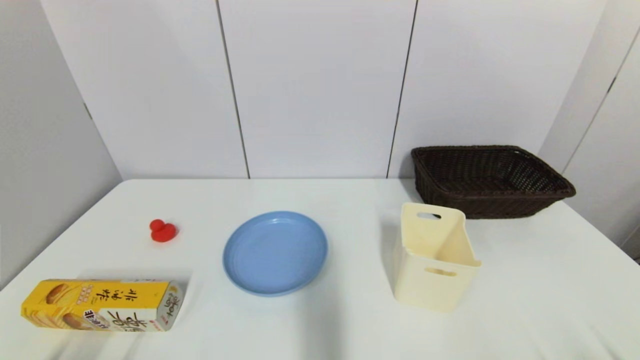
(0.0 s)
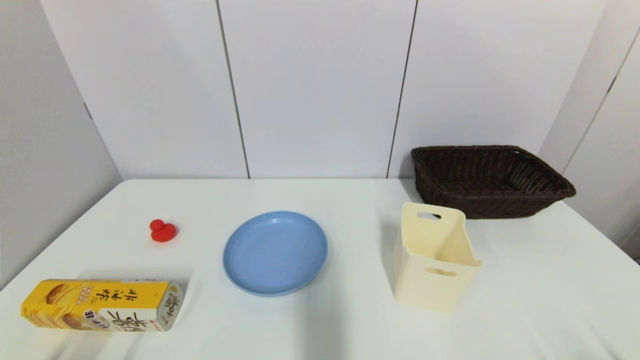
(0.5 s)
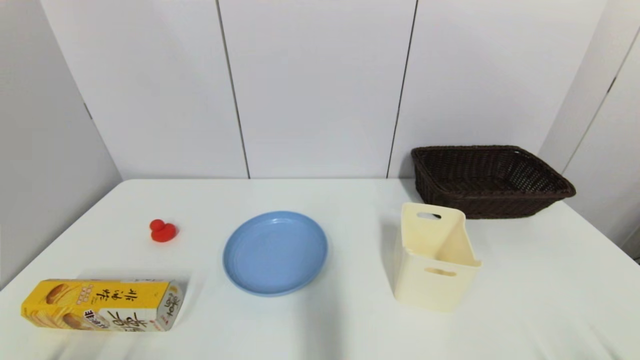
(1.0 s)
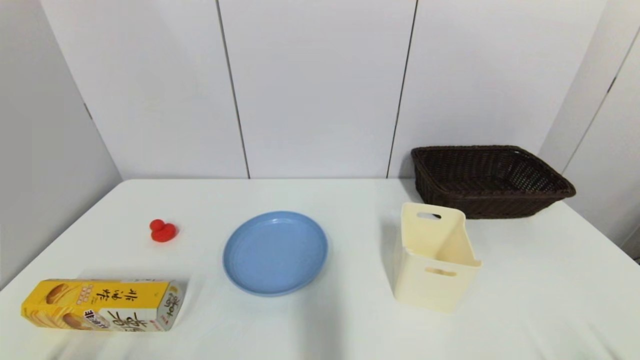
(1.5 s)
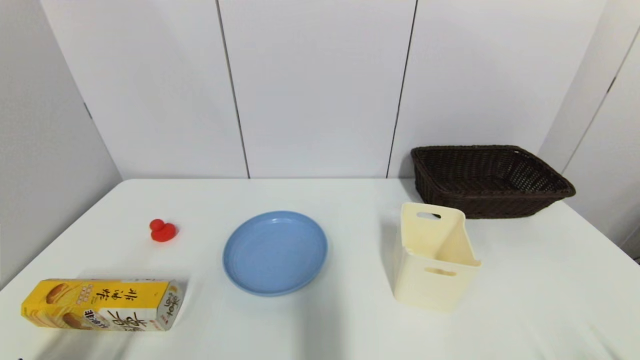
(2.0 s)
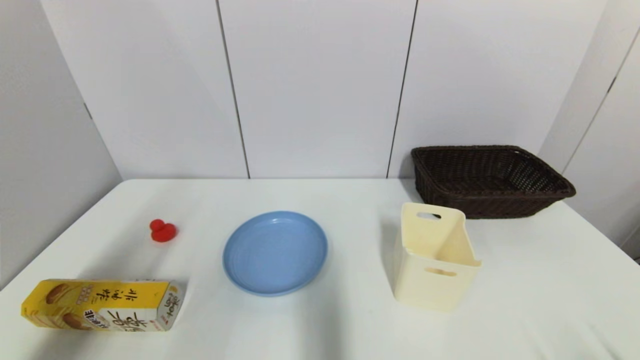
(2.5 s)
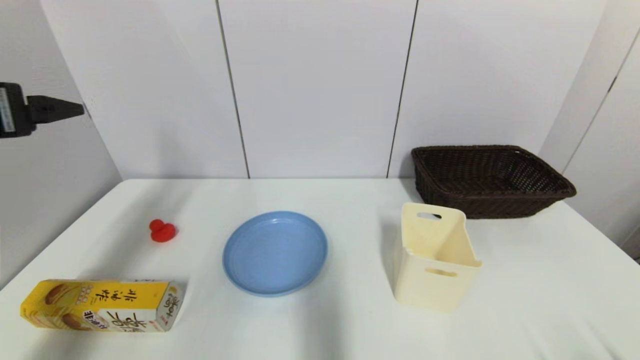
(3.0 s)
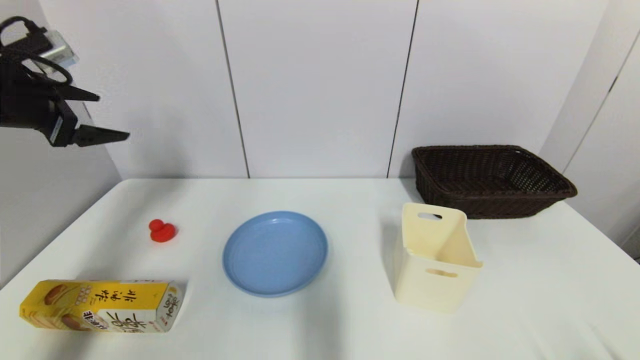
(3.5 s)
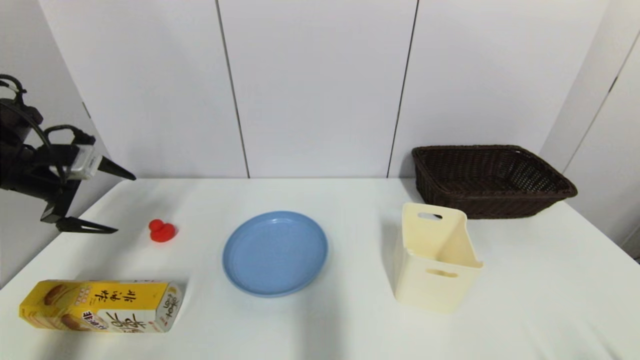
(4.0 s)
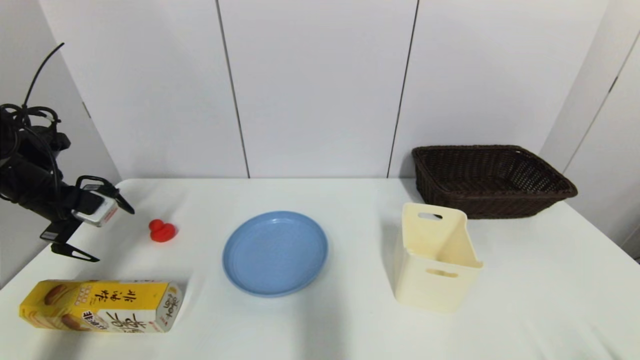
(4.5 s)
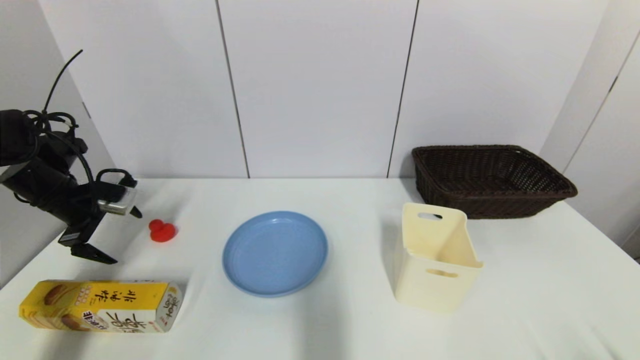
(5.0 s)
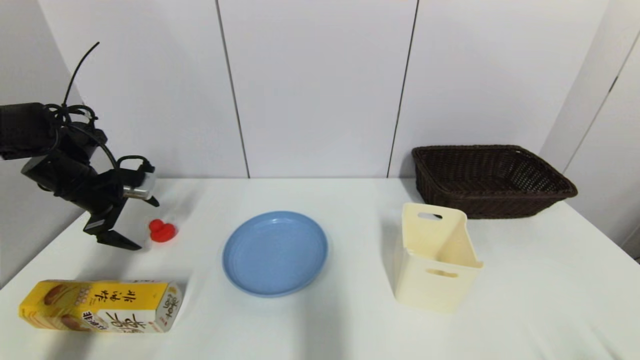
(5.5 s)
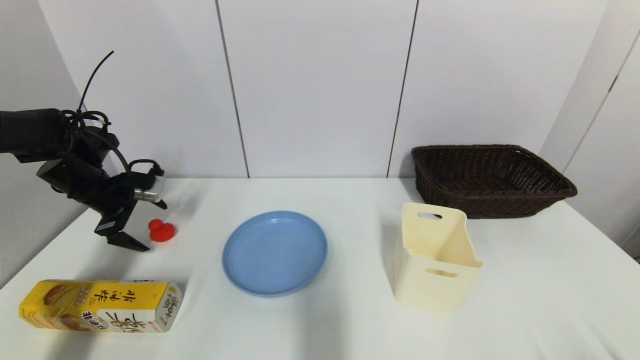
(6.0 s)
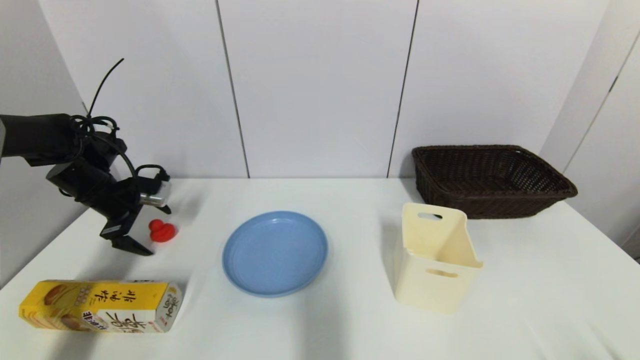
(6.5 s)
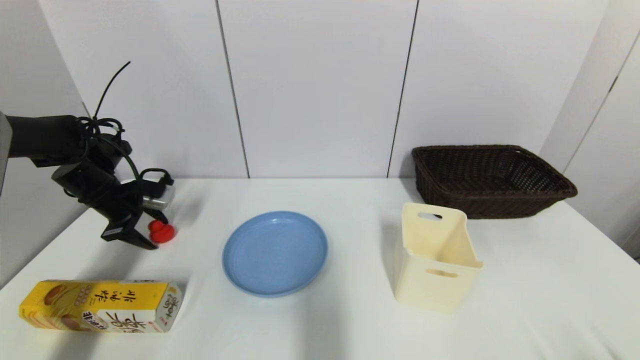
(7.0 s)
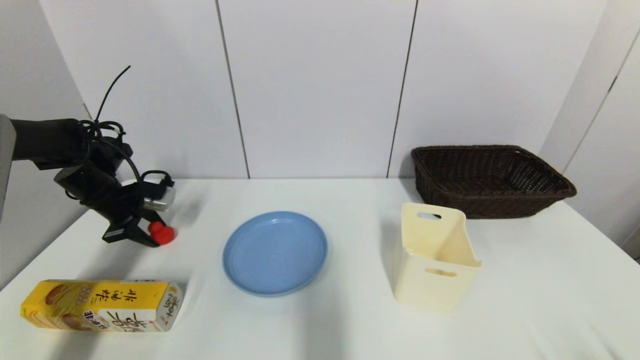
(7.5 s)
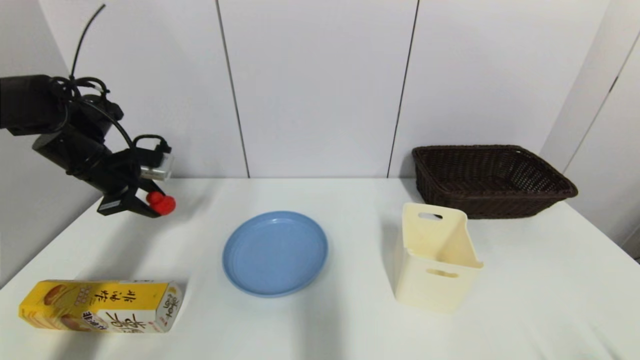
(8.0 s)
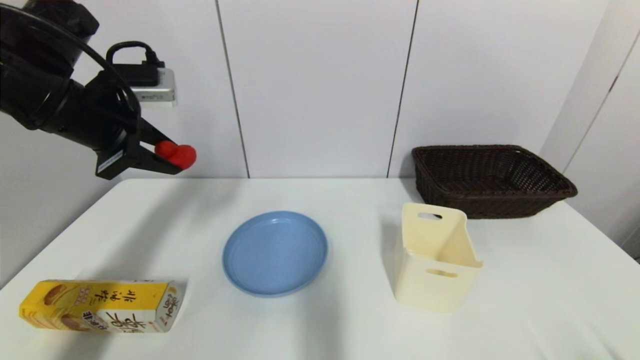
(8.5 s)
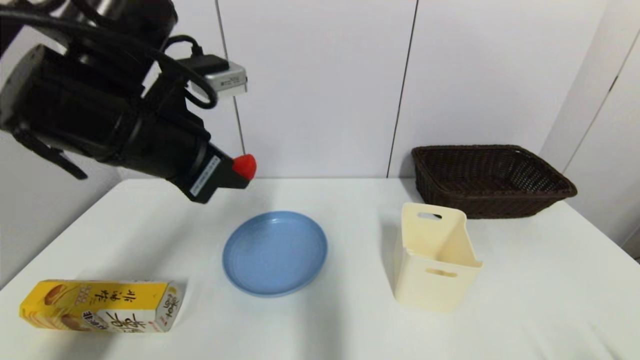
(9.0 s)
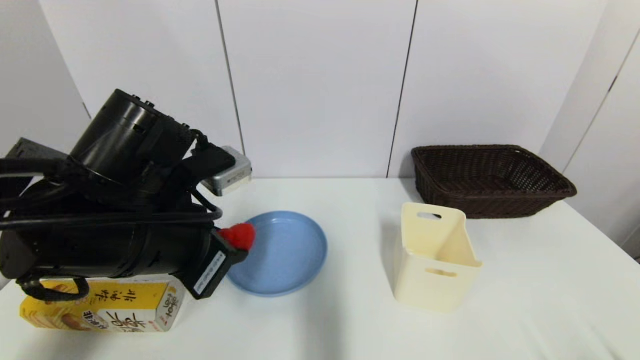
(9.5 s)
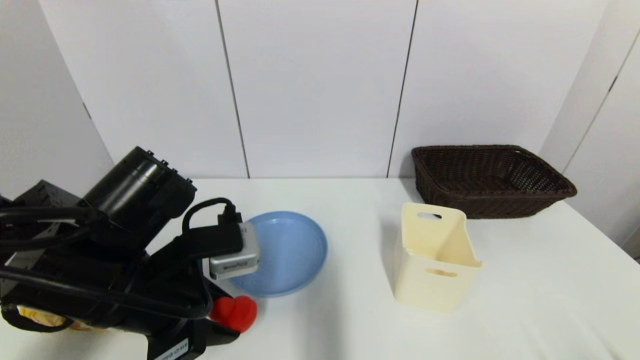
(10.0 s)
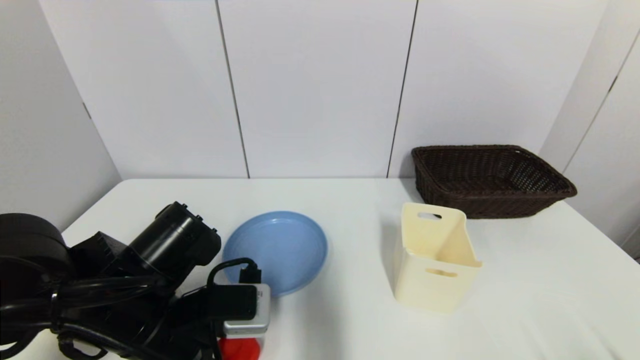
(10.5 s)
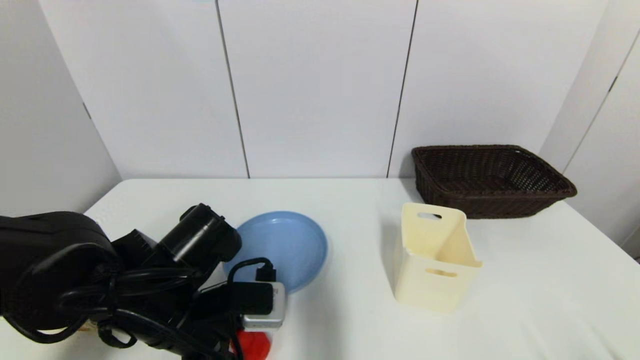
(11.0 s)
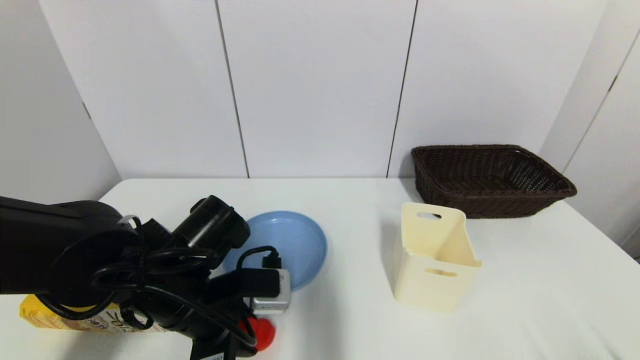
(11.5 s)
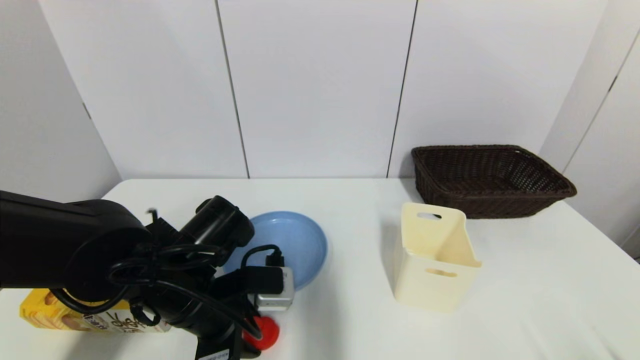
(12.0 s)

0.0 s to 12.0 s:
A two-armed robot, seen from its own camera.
Step, 2.0 to 7.5 s: Grasp the red duck with left gripper.
0.0 to 2.0 s: The left gripper travels upward by roughly 10 cm.
2.0 to 4.0 s: The left gripper is displaced forward by roughly 35 cm.
4.0 to 6.0 s: The left gripper travels forward and downward by about 10 cm.
6.0 to 8.0 s: The left gripper heads upward, covering roughly 5 cm, and closes up.
8.0 to 10.0 s: The left gripper heads backward and to the right, covering roughly 25 cm.
10.0 to 12.0 s: The left gripper heads downward, covering approximately 5 cm.

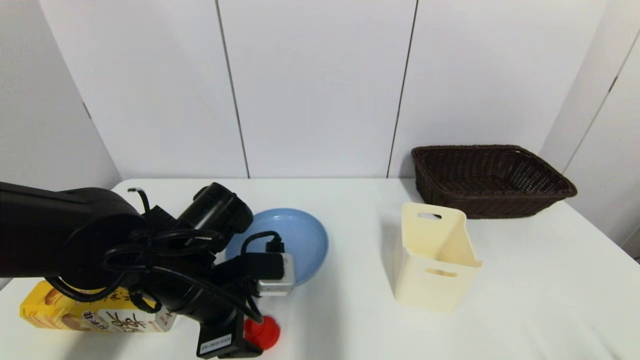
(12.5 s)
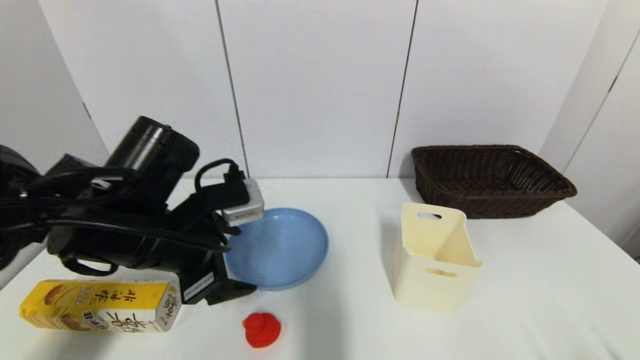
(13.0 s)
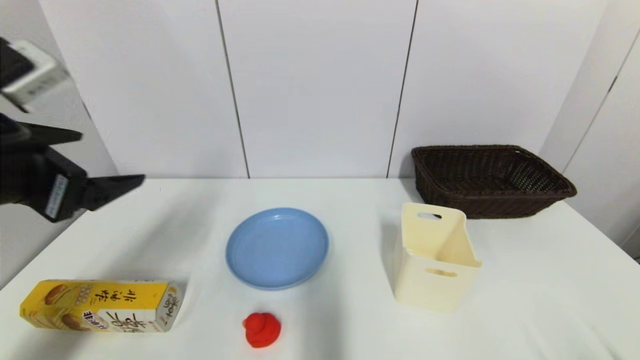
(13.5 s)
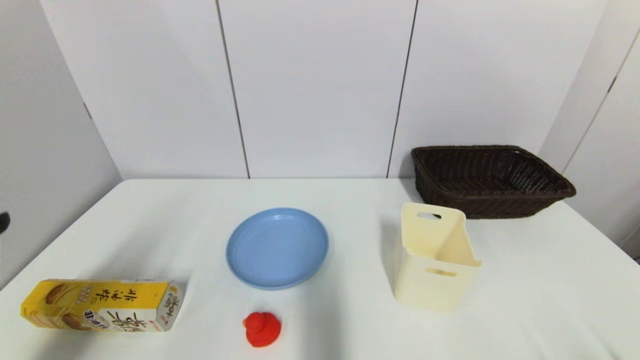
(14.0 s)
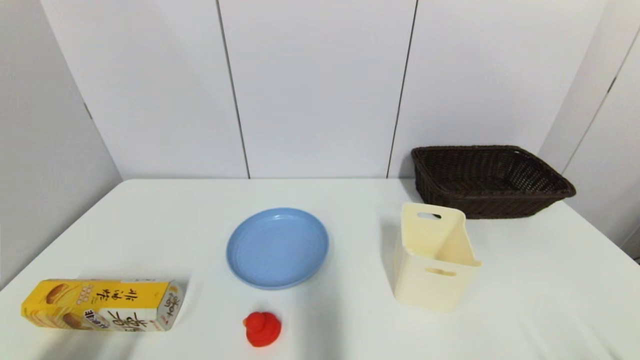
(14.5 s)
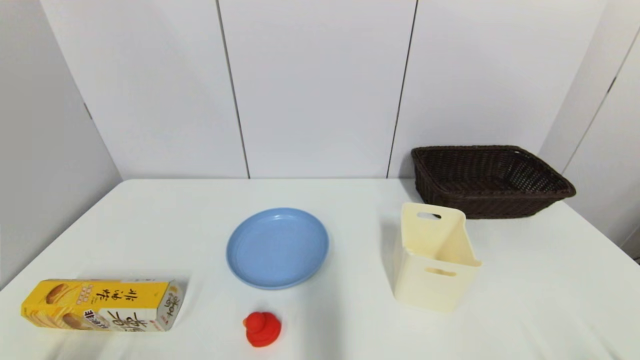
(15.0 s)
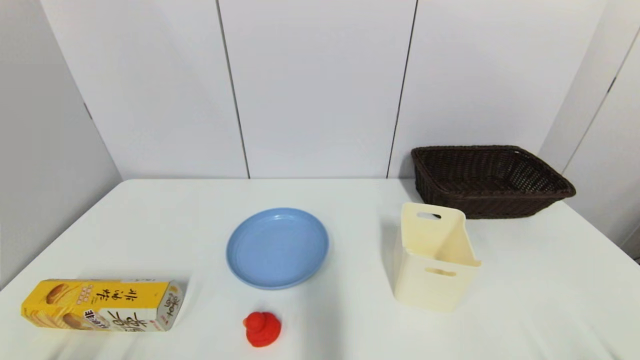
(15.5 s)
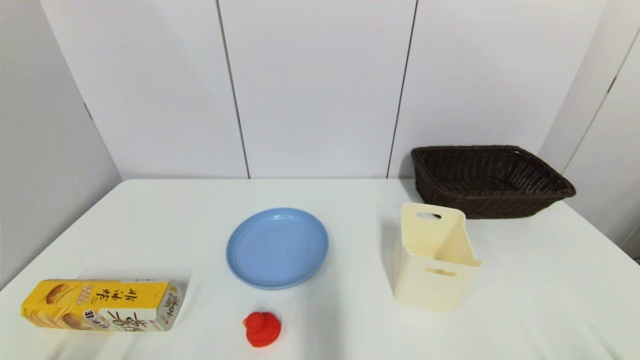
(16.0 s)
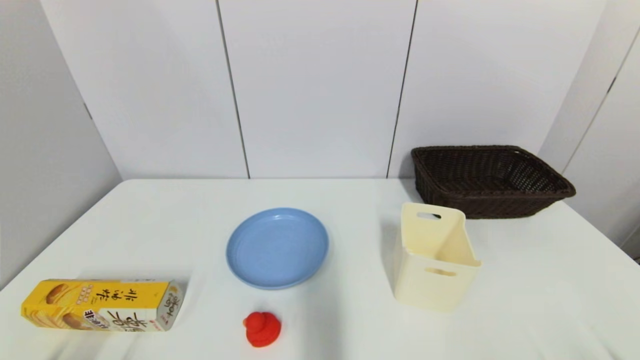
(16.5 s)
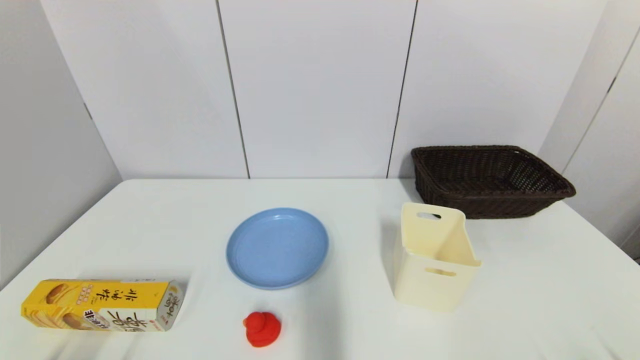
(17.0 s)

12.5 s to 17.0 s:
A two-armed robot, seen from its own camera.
12.5 to 14.5 s: The left gripper is displaced backward and to the left by approximately 30 cm.
14.5 to 17.0 s: The left gripper moves downward, some 10 cm.
